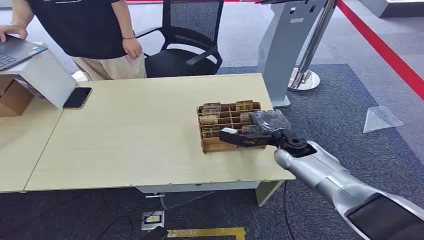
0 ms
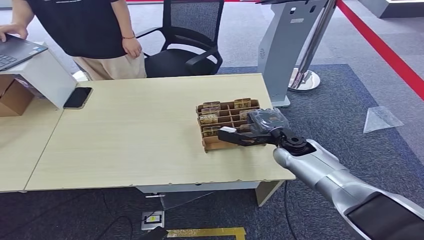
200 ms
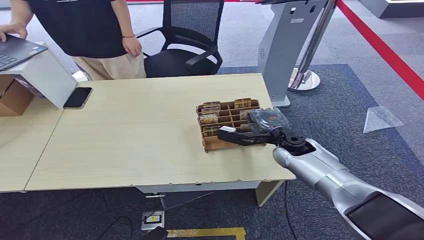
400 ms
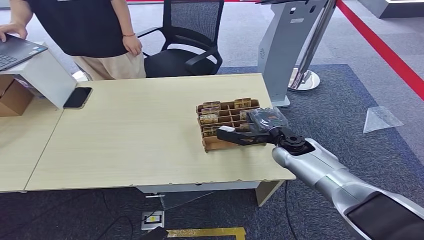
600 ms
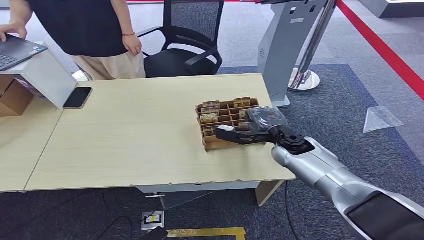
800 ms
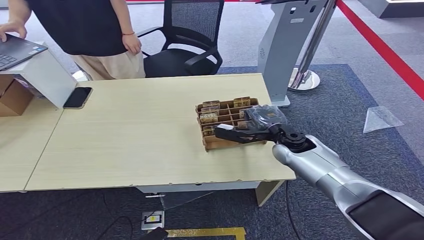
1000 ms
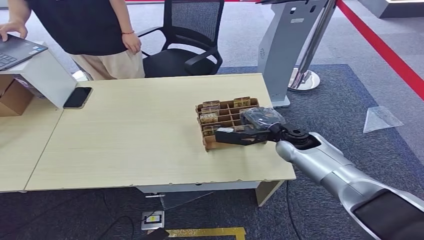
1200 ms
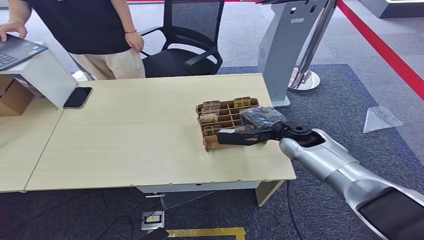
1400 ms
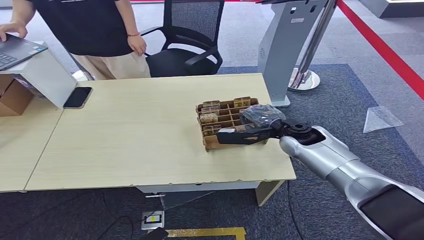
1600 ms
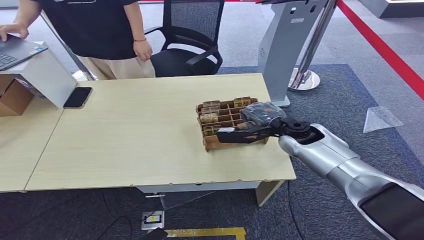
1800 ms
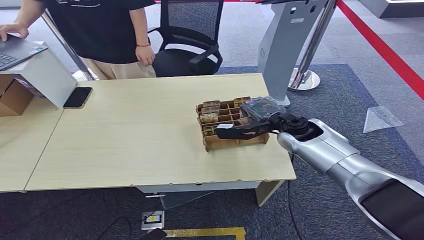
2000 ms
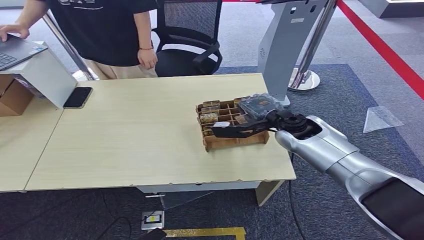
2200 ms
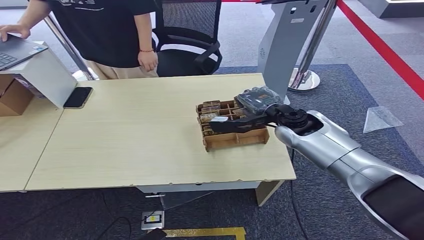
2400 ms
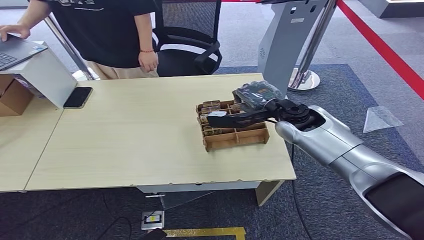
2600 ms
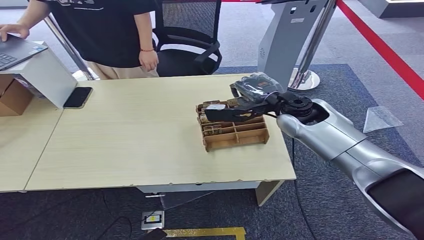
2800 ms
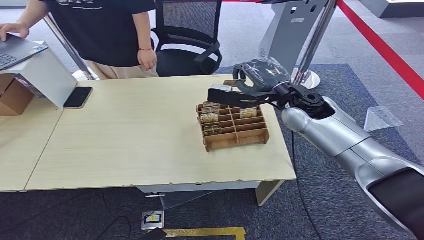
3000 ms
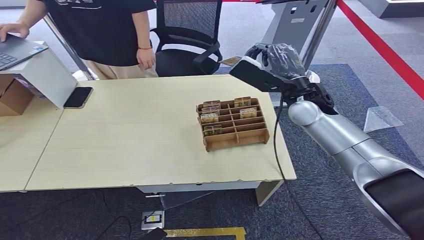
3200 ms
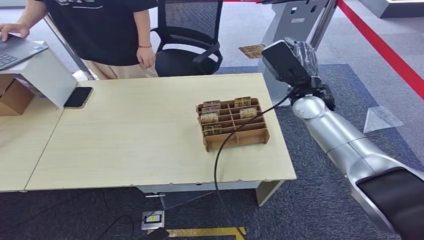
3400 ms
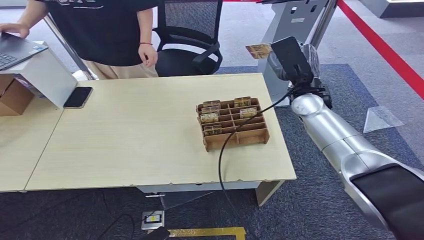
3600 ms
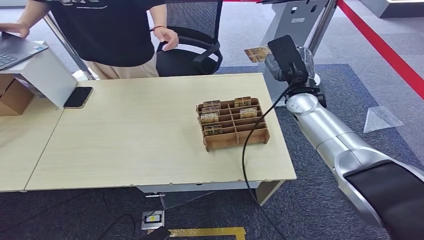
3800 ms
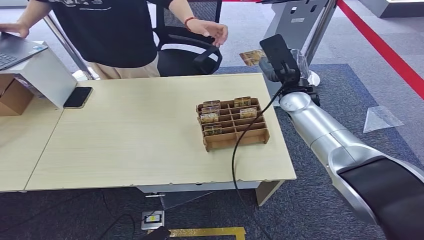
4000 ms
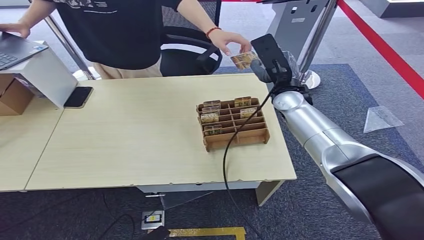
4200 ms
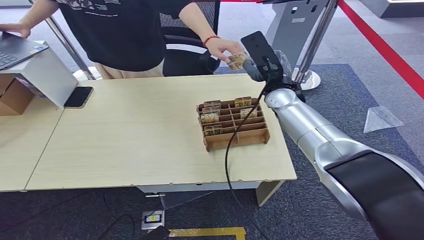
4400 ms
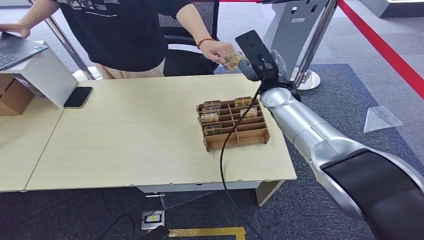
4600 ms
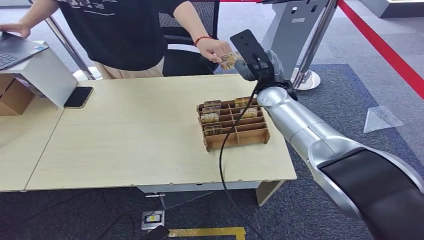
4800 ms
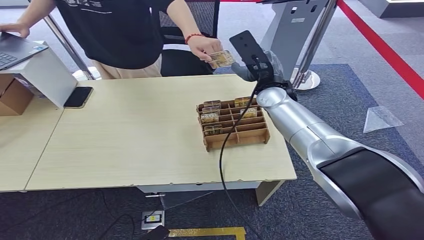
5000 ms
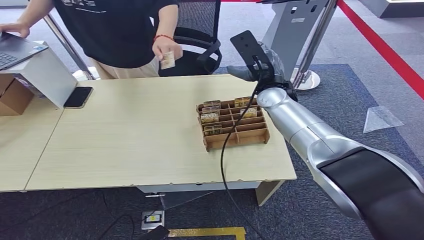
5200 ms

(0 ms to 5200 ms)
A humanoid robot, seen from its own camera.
Step, 0 ms - 2400 ms: Pick up the room card from the card holder.
Step, 2600 ms - 5200 ms: Hand the room card to the target.
1800 ms - 3400 ms: The right hand travels upward by roughly 10 cm.
3400 ms - 5200 ms: The right hand heads to the left, covering roughly 5 cm.
